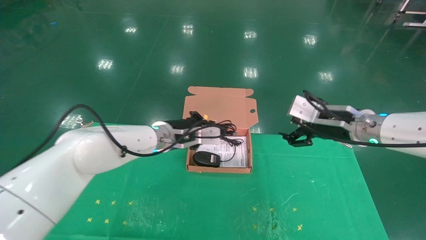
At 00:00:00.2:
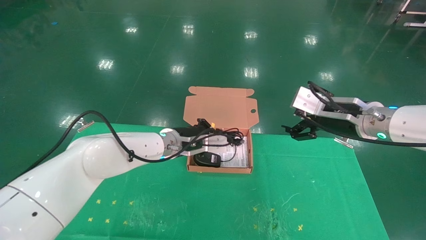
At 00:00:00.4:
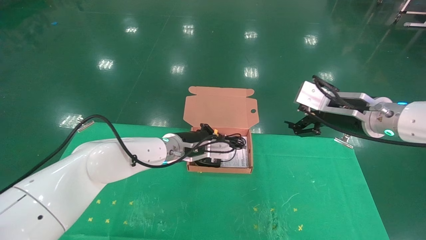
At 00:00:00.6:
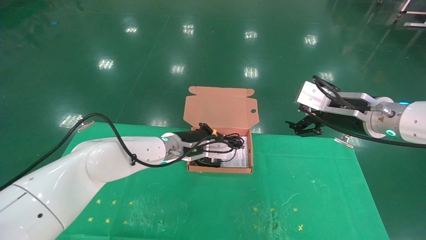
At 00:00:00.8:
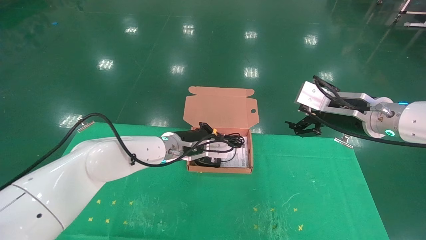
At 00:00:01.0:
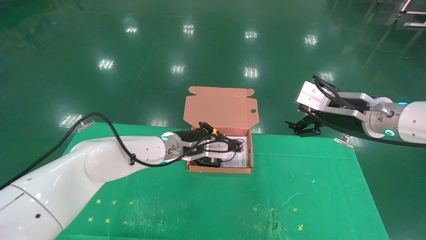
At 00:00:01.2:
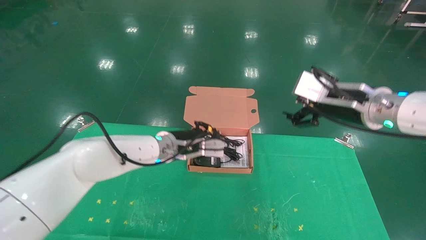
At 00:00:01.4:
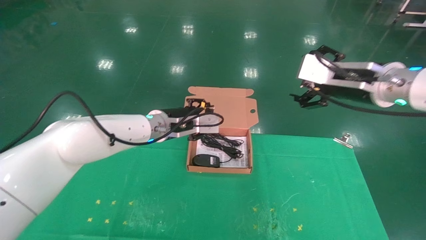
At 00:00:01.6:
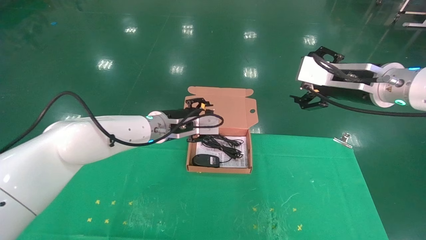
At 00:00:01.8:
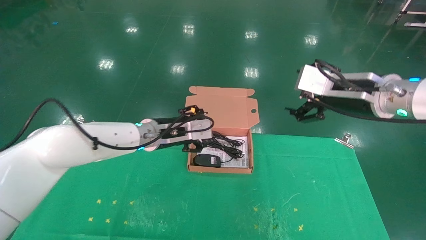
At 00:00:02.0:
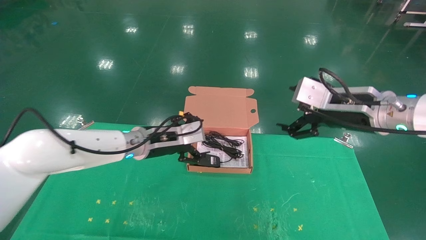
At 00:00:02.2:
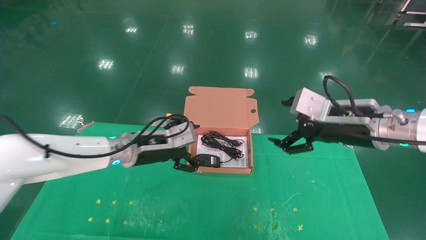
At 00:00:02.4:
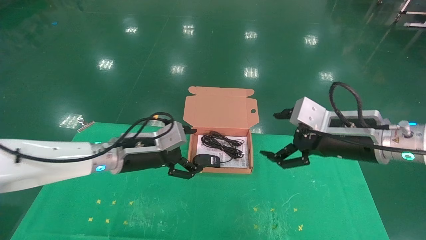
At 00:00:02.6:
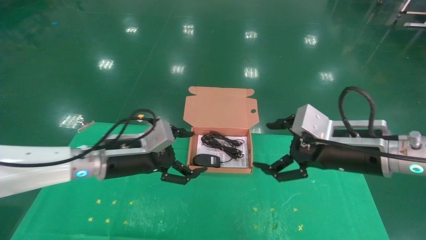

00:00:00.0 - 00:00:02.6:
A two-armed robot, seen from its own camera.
Task of the whole recording: grasp data cable left put into box grasp mouse right put into box.
00:00:00.0 - 00:00:01.2: The right gripper goes about 5 cm upward.
00:00:01.2 - 00:00:02.6: The left gripper is displaced to the left and backward by roughly 15 cm, and opens. Meanwhile the right gripper goes about 10 cm downward and backward.

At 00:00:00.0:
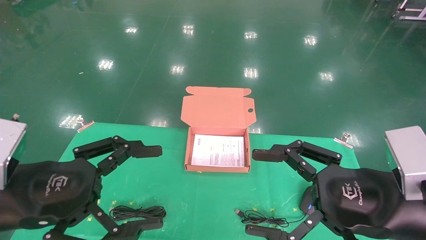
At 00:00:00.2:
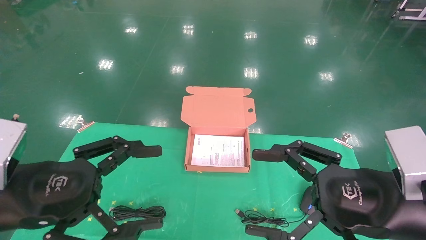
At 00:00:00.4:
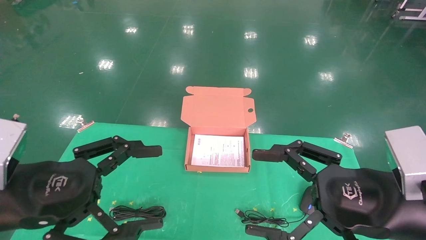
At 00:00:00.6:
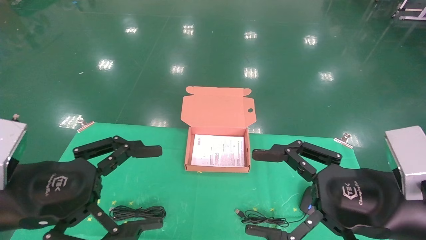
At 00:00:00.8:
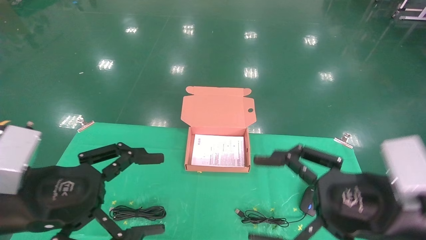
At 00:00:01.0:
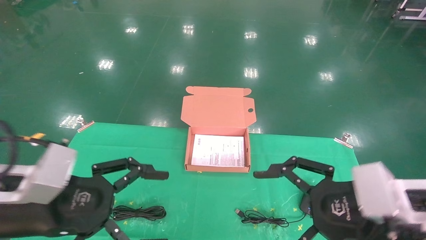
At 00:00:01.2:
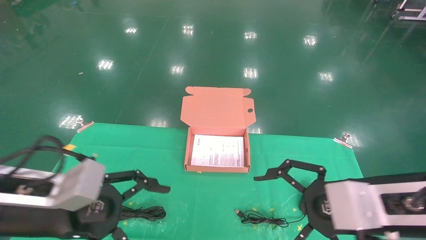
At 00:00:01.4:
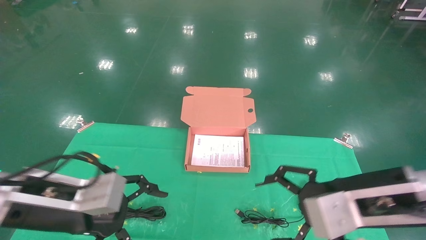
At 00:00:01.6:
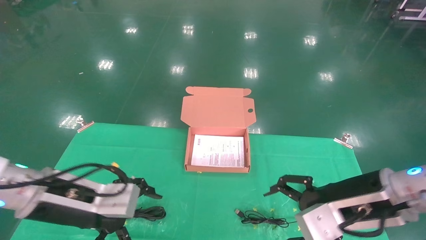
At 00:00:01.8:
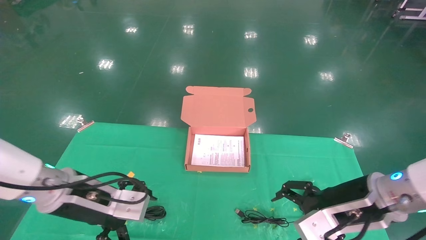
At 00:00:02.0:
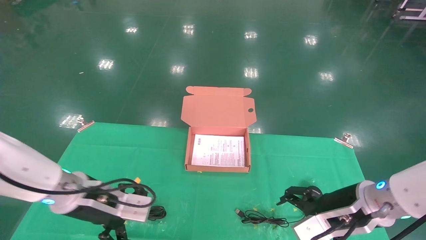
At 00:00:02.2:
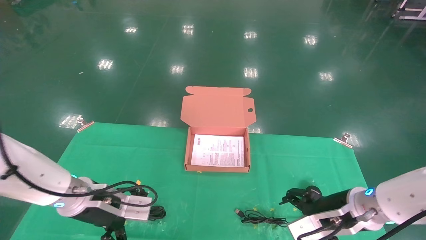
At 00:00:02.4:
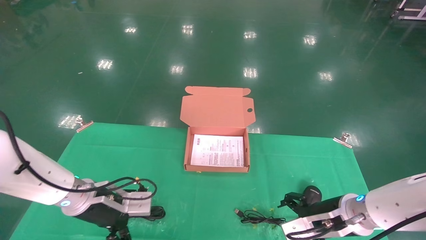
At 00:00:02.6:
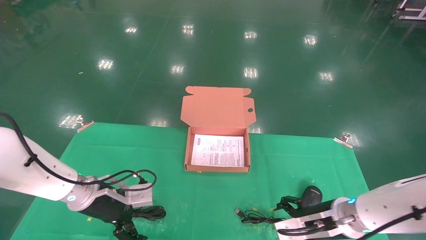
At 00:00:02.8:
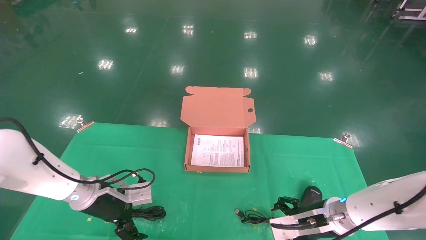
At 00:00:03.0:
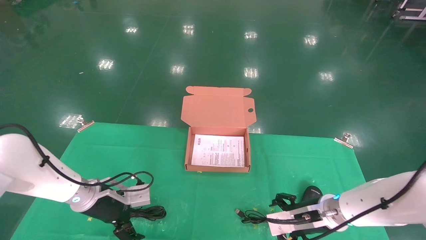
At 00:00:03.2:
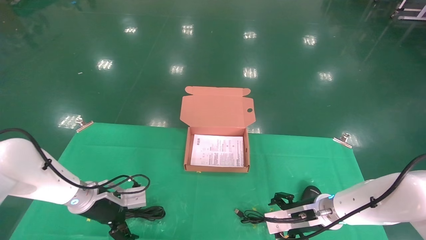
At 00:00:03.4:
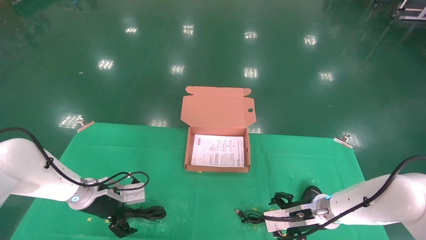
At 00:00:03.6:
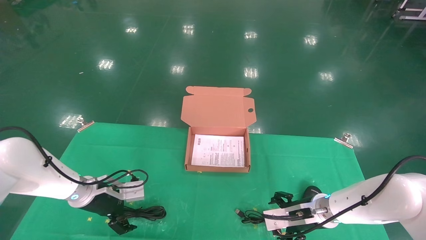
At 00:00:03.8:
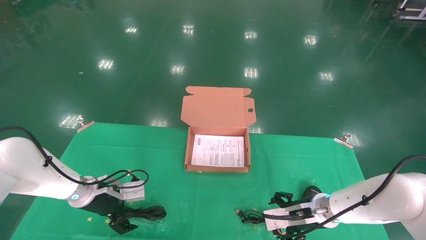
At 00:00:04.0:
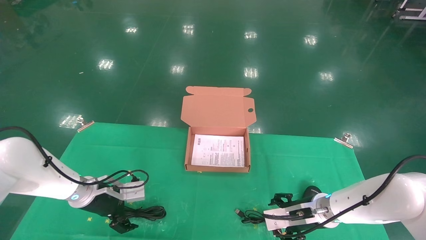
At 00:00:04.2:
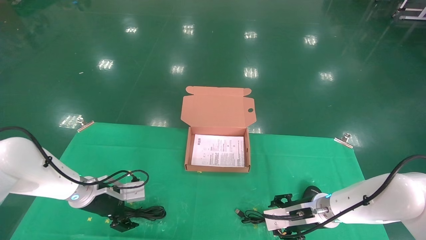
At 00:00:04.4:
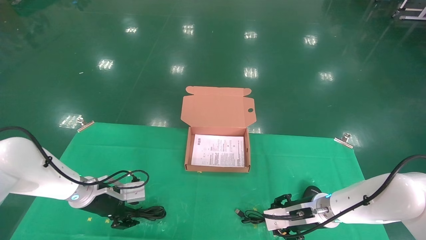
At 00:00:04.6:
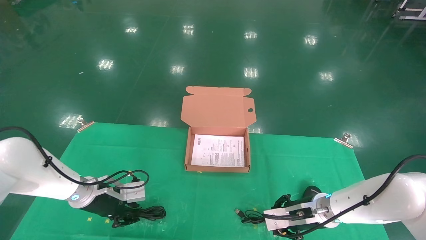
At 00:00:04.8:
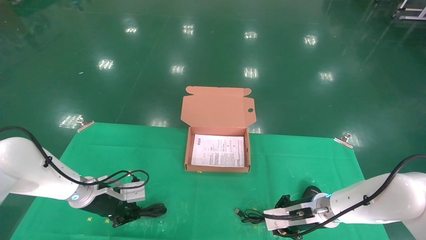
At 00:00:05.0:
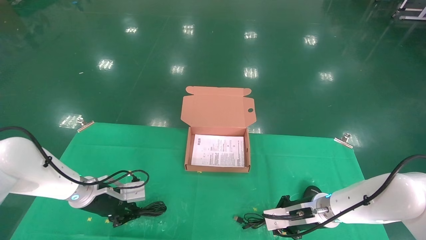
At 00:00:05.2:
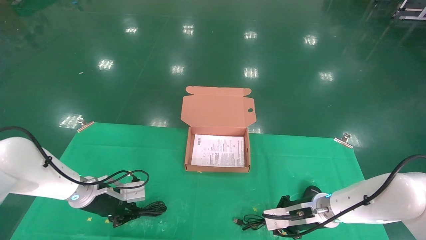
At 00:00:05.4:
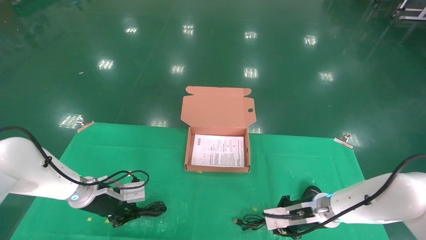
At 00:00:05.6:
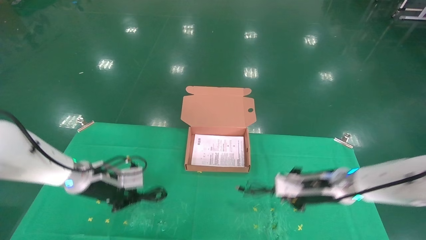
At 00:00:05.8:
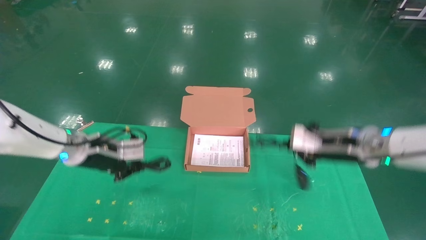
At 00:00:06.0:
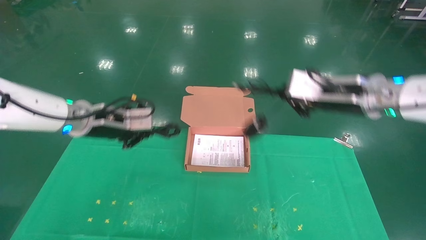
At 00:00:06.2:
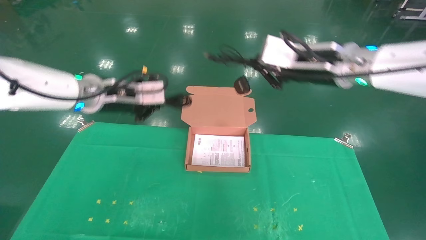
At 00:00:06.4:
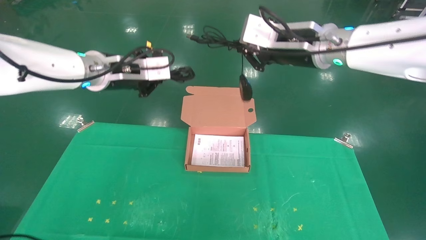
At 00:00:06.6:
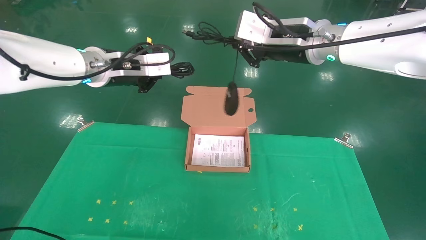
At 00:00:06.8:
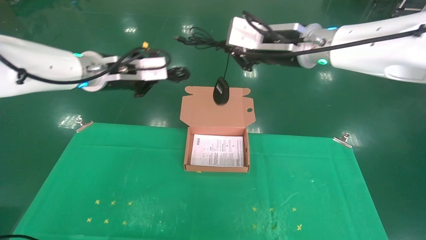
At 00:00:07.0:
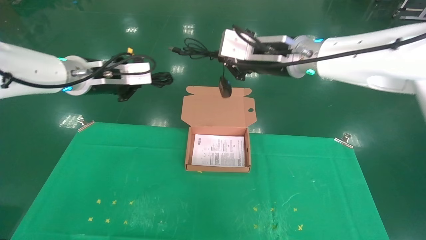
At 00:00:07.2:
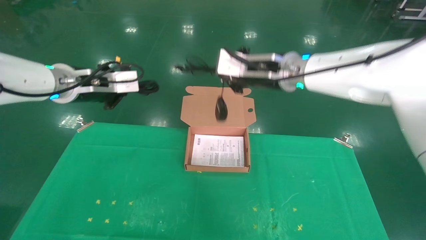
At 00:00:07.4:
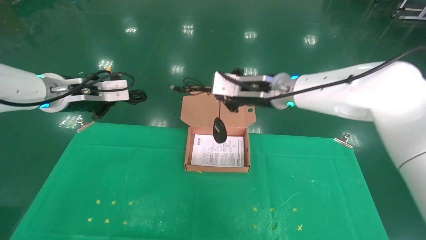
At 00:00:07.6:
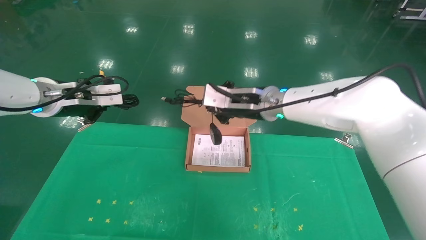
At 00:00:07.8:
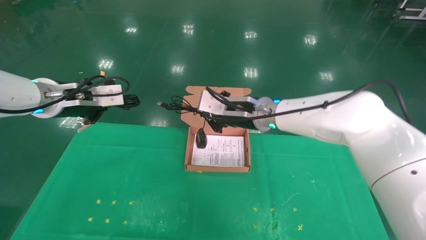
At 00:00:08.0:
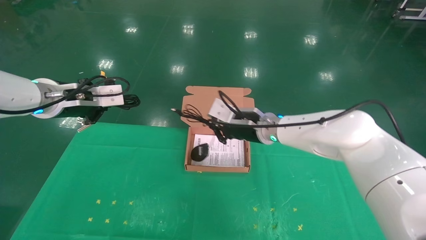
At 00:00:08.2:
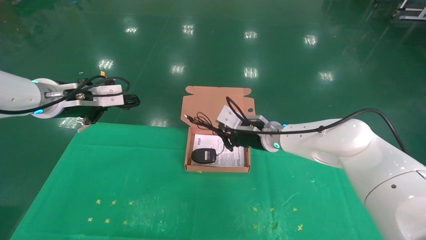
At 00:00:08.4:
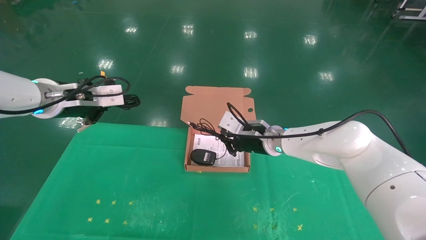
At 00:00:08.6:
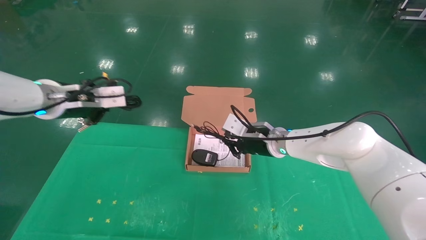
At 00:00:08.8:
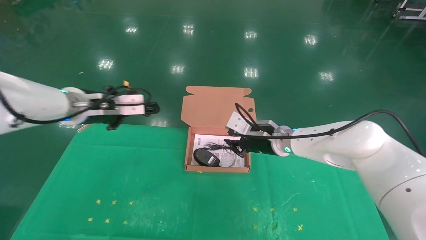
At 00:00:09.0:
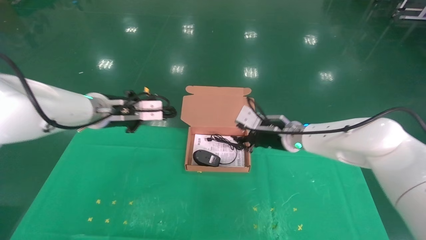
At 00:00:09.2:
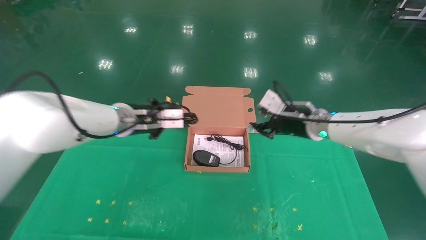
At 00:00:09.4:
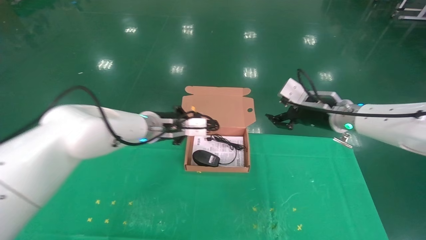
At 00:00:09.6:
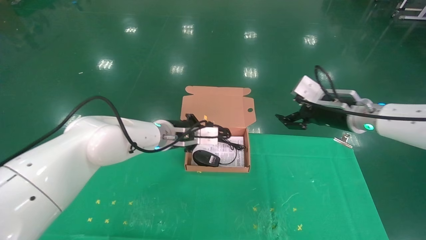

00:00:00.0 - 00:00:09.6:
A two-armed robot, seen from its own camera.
Task of the whole recording: grasp data cable left put into box grasp mouse right put into box.
Step, 00:00:01.0 - 00:00:06.0: Grab and pick up both the mouse and power cord from the accessory packaging area at the same time.
00:00:00.0 - 00:00:01.6: The grippers both shift forward by roughly 10 cm.
00:00:01.6 - 00:00:03.2: The right gripper heads downward and forward, covering roughly 20 cm. The left gripper is displaced forward and downward by some 20 cm.
00:00:03.2 - 00:00:04.8: The left gripper closes up; the right gripper closes.
00:00:04.8 - 00:00:06.4: The grippers both shift upward by roughly 30 cm.
00:00:06.4 - 00:00:08.0: The left gripper moves to the left, about 10 cm; the right gripper goes about 20 cm downward, forward and to the left.
00:00:08.0 - 00:00:09.6: The right gripper travels to the right by some 20 cm, and opens its fingers. The left gripper moves to the right, downward and forward, about 25 cm.

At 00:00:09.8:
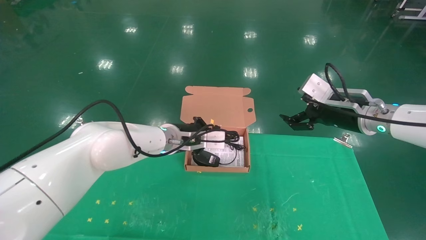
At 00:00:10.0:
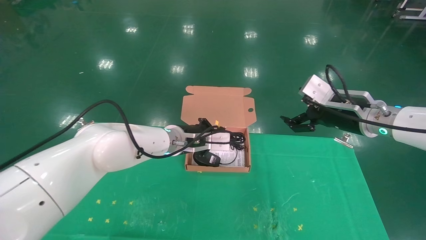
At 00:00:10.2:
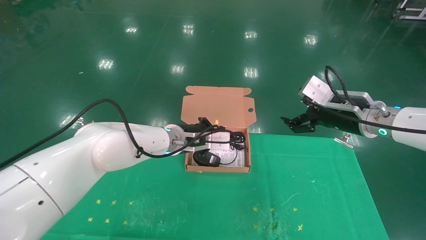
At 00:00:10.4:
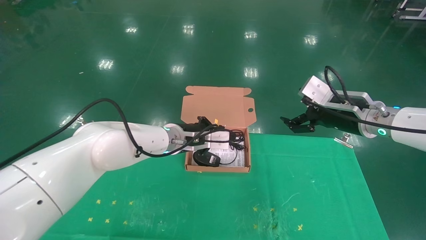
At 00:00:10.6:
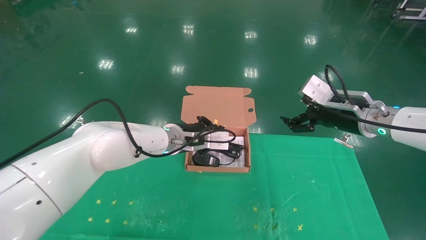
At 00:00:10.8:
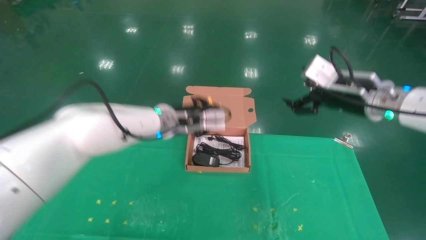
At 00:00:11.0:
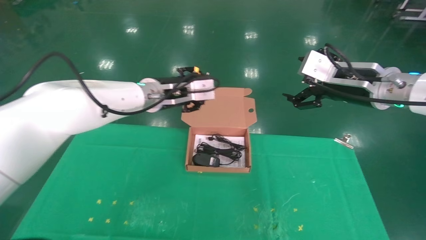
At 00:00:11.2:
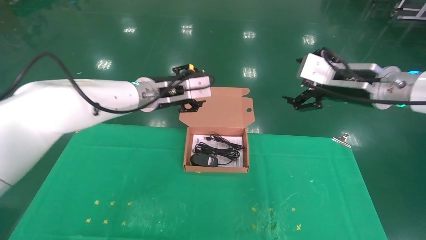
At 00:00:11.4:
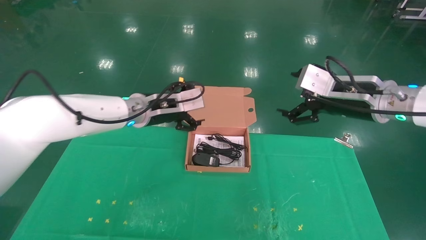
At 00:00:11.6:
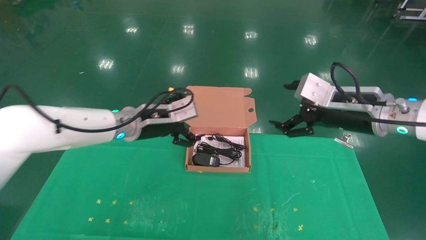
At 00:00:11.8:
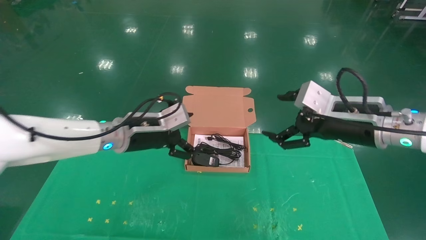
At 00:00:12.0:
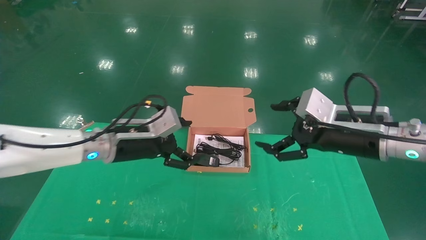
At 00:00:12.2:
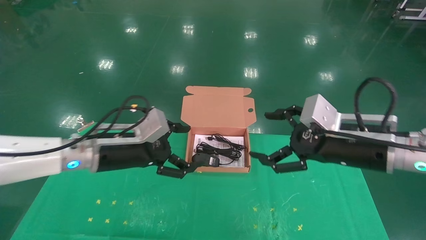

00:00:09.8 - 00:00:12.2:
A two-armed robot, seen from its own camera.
Task of the whole recording: grasp data cable left put into box grasp mouse right put into box.
00:00:09.8 - 00:00:11.0: The two grippers go some 5 cm upward. The left gripper opens its fingers.
00:00:11.0 - 00:00:12.2: The left gripper shifts approximately 15 cm backward, to the left and downward, and opens. The right gripper heads downward and backward, covering some 10 cm.
